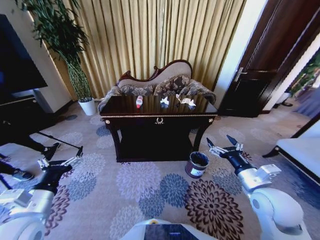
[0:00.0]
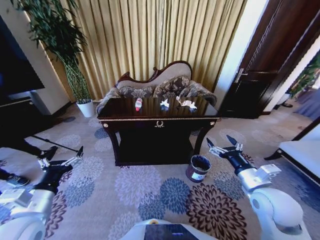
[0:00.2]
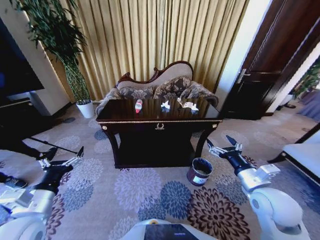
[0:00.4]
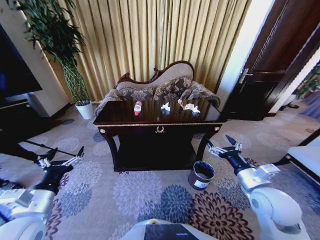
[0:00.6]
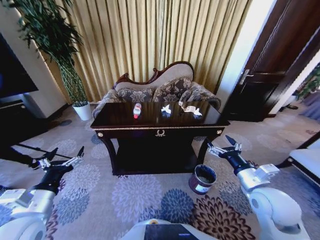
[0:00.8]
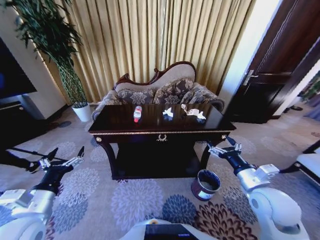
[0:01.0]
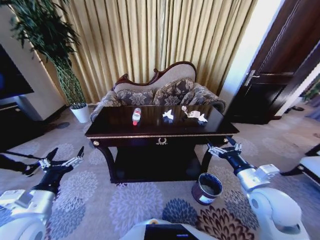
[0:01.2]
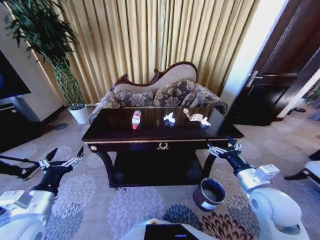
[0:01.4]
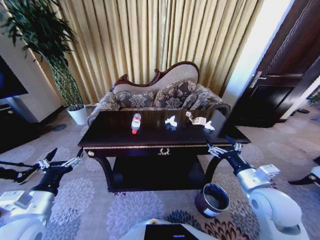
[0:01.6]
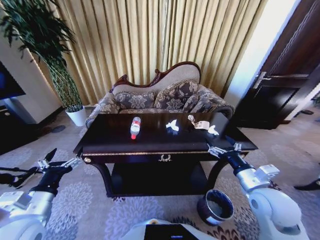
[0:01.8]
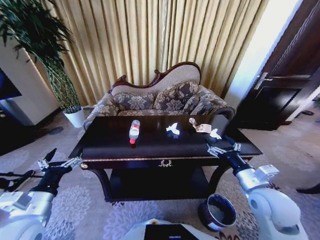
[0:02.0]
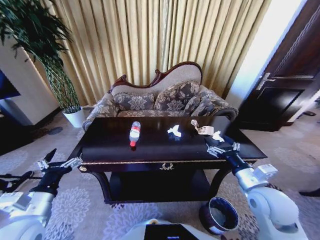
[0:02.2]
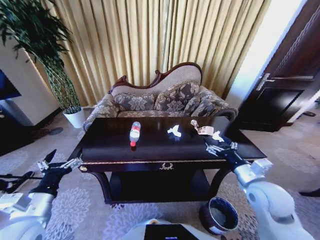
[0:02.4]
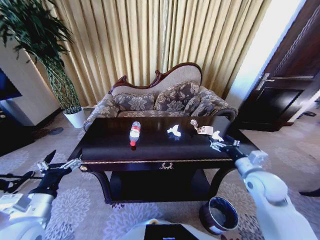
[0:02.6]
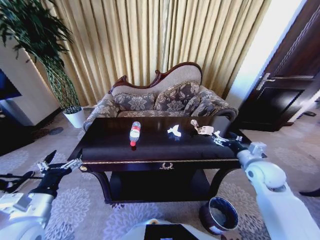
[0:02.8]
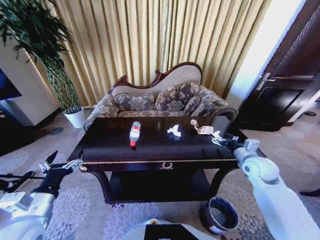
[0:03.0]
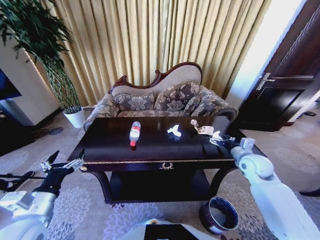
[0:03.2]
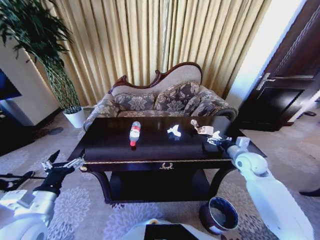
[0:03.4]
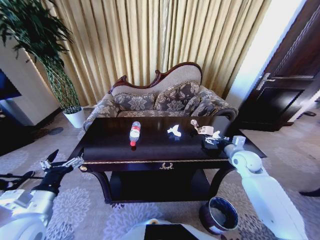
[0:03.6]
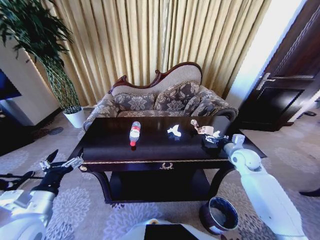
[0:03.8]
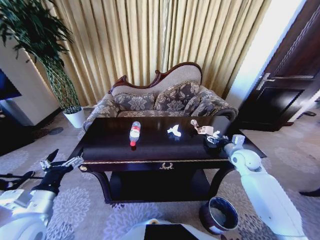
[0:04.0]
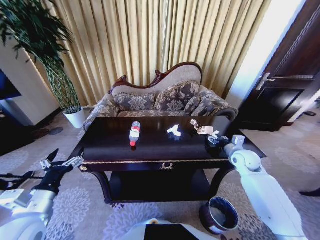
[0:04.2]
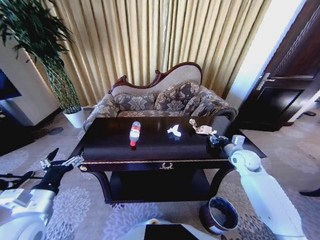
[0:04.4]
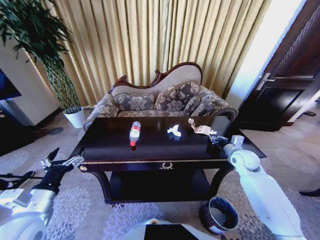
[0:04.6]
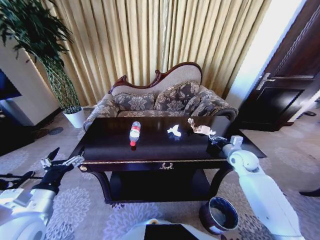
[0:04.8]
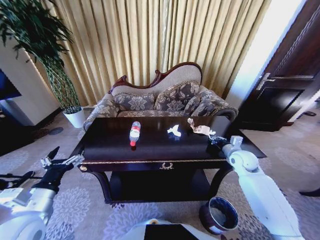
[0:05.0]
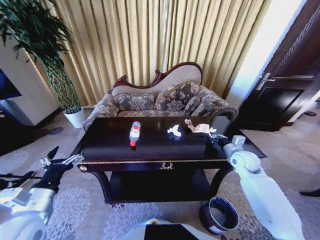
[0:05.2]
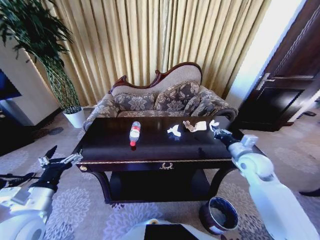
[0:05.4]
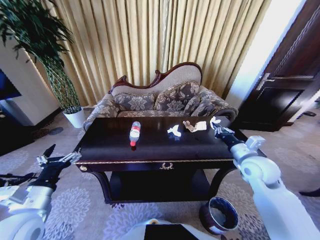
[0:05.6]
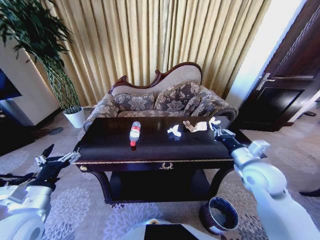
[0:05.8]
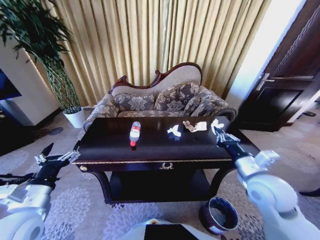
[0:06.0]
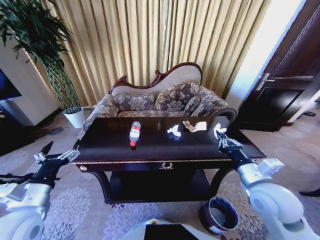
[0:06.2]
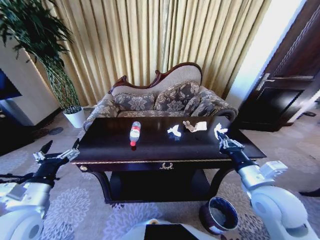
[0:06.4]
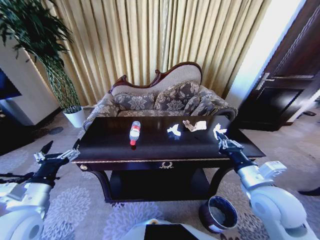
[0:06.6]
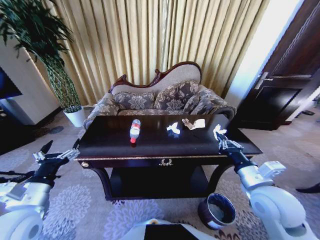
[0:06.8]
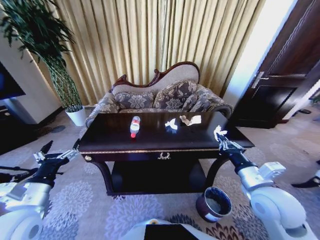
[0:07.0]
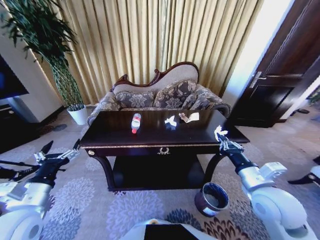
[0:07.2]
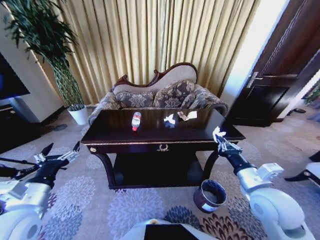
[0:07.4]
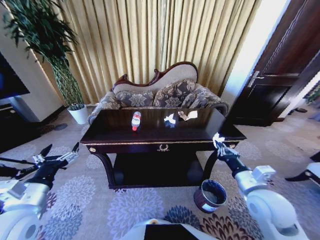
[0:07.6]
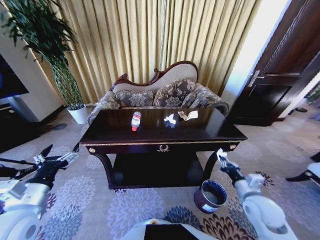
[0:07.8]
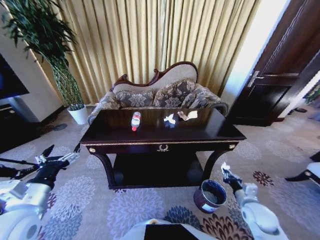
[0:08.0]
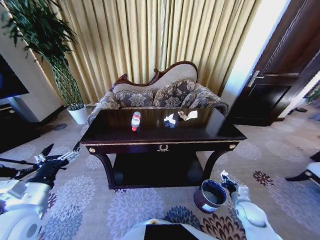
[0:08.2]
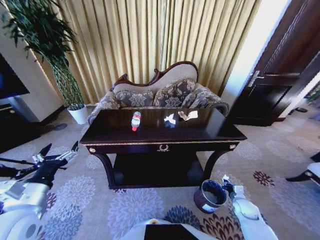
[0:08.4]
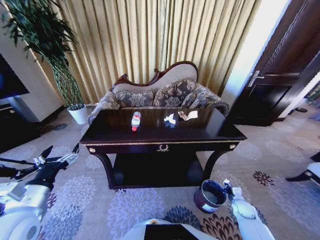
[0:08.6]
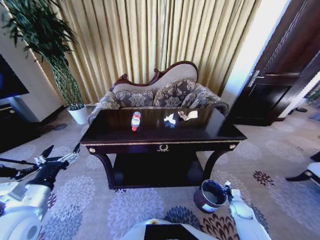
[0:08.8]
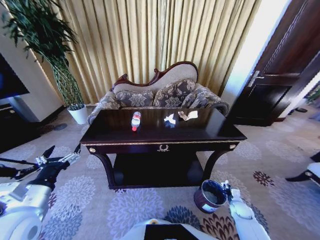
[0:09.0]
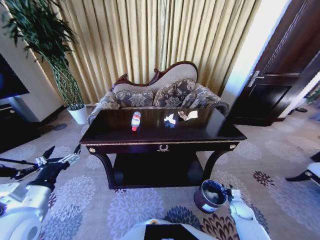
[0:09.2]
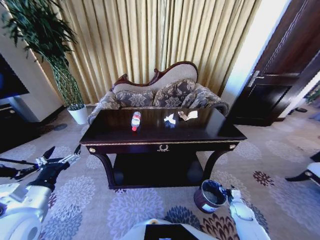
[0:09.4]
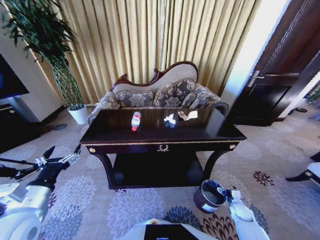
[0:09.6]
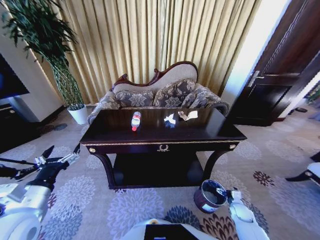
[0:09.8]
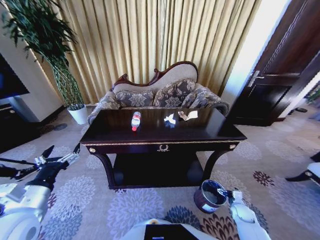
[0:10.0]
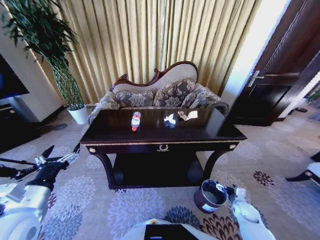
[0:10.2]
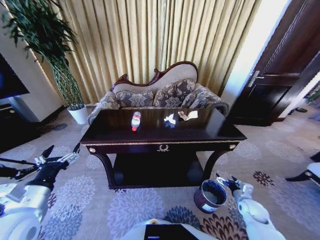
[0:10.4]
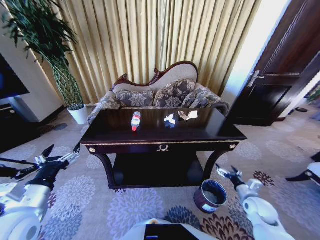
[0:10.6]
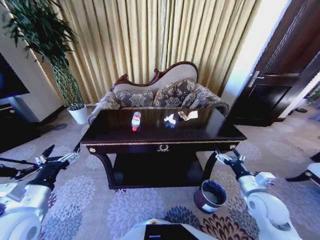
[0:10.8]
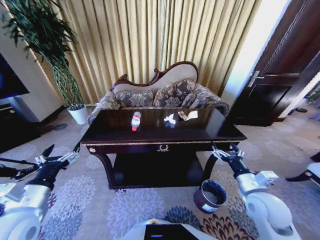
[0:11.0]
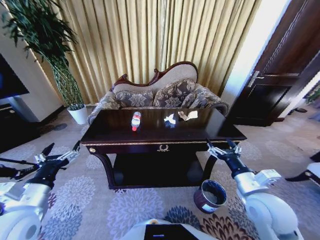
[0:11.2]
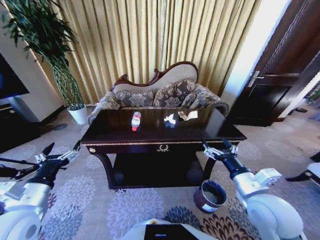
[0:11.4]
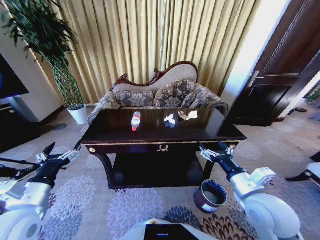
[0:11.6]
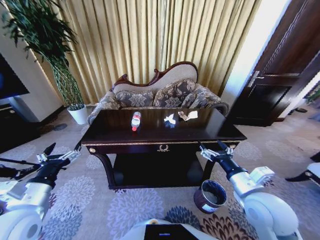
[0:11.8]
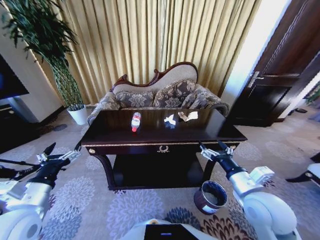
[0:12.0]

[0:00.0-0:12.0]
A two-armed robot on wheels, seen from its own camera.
Task of the whole recording: Move to the front of the table and place the trash on the table into the trash bin.
0:01.6 to 0:03.0: The right gripper goes about 15 cm forward and to the right.
0:03.0 to 0:04.4: The right gripper shifts some 5 cm forward, and closes its fingers.
0:04.4 to 0:06.0: The right gripper moves backward, to the left and upward, approximately 20 cm, and closes.
0:06.0 to 0:07.6: The right gripper moves roughly 5 cm.
0:07.6 to 0:09.0: The right gripper goes approximately 35 cm downward and to the right.
0:09.0 to 0:10.4: The right gripper travels upward by approximately 10 cm, and opens.
0:10.4 to 0:12.0: The right gripper travels upward and to the left by approximately 30 cm.

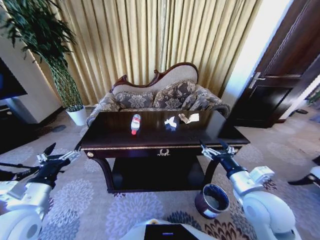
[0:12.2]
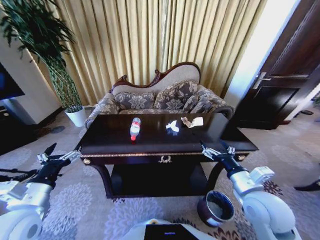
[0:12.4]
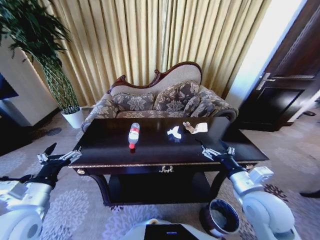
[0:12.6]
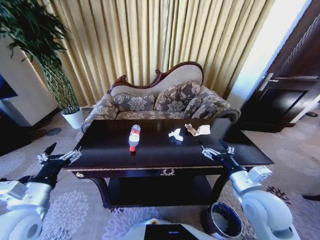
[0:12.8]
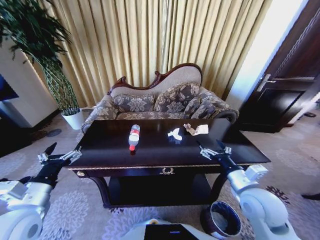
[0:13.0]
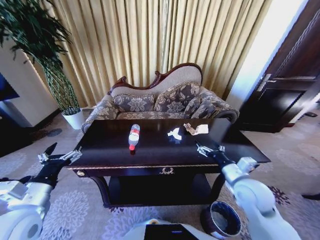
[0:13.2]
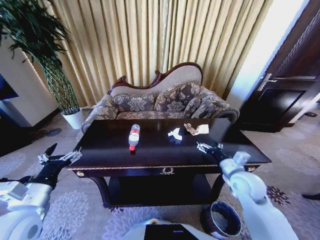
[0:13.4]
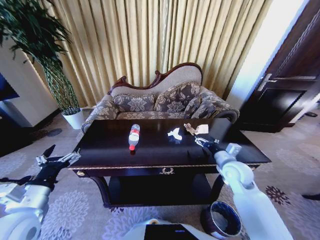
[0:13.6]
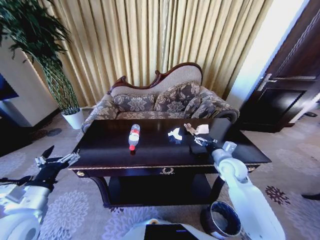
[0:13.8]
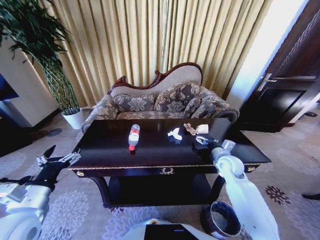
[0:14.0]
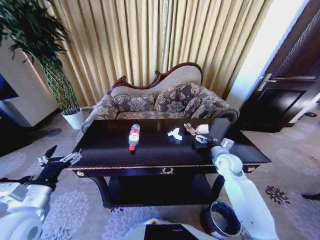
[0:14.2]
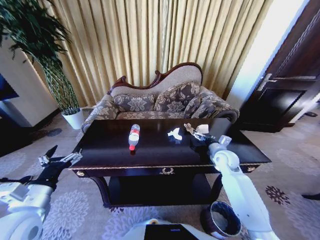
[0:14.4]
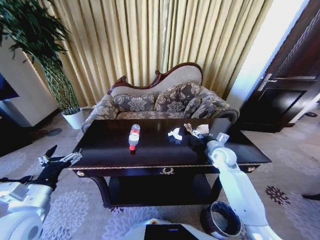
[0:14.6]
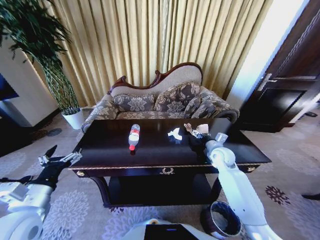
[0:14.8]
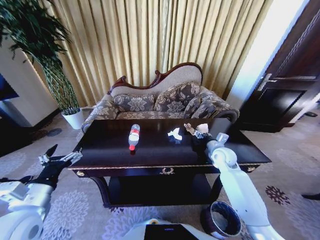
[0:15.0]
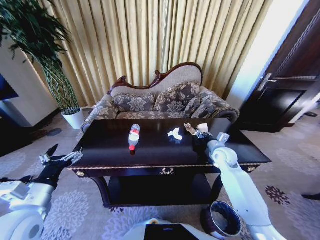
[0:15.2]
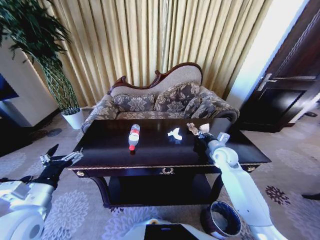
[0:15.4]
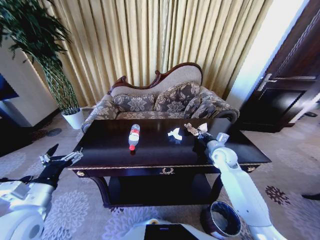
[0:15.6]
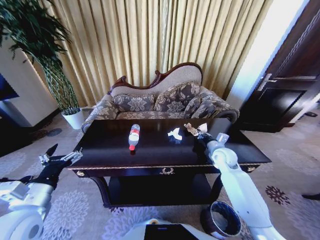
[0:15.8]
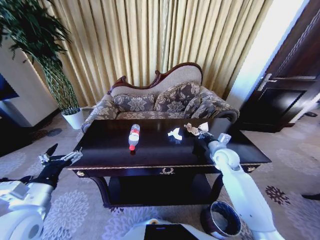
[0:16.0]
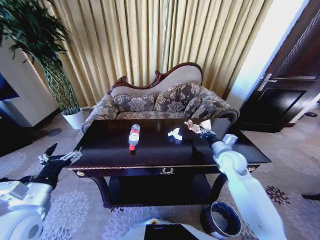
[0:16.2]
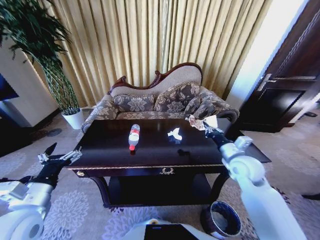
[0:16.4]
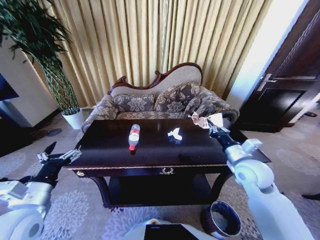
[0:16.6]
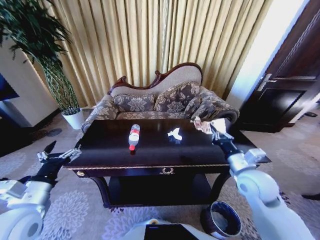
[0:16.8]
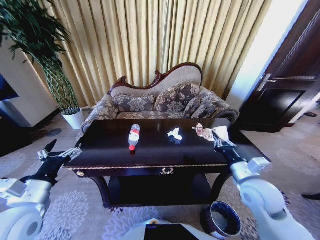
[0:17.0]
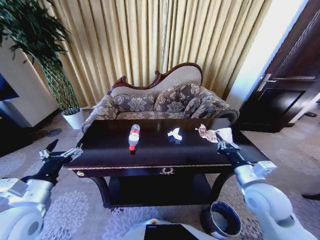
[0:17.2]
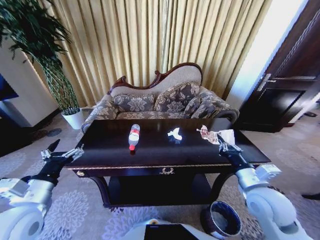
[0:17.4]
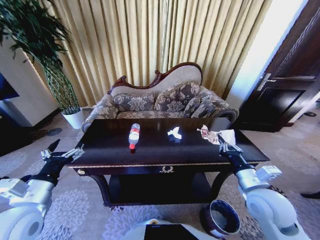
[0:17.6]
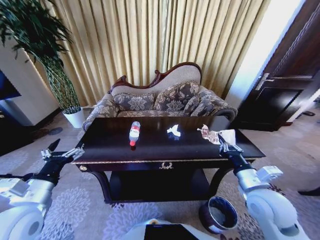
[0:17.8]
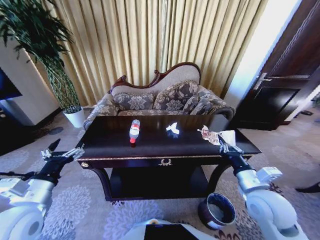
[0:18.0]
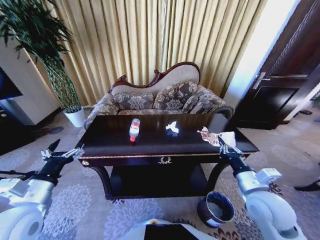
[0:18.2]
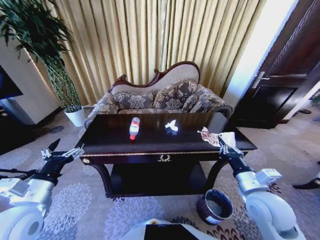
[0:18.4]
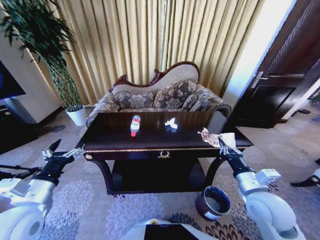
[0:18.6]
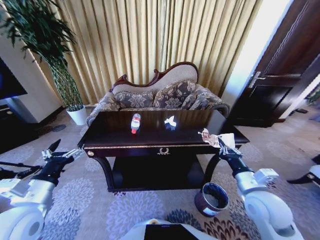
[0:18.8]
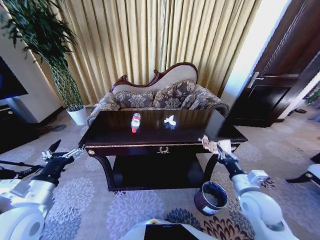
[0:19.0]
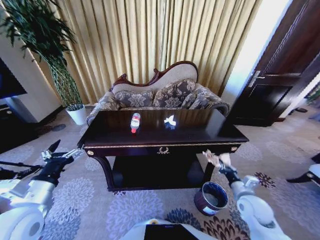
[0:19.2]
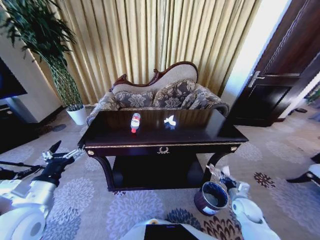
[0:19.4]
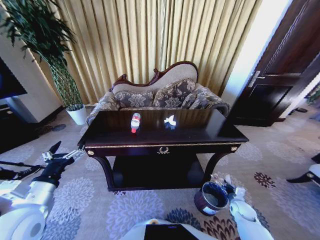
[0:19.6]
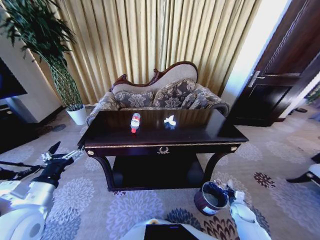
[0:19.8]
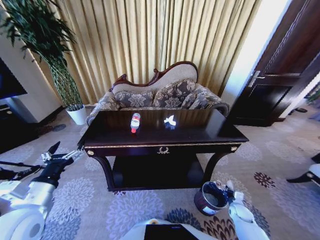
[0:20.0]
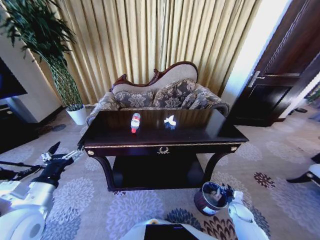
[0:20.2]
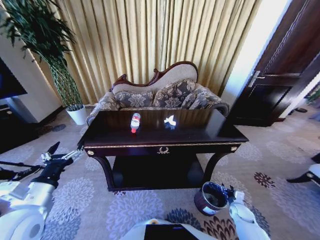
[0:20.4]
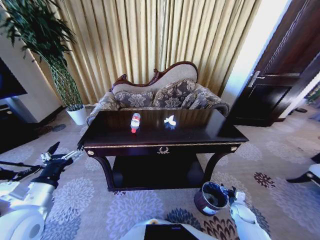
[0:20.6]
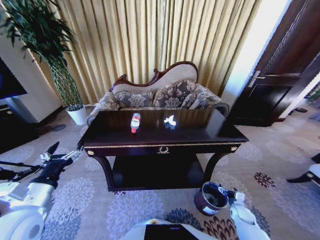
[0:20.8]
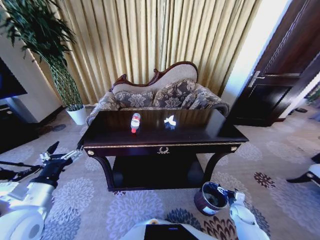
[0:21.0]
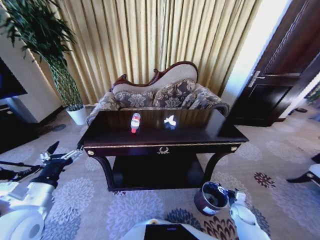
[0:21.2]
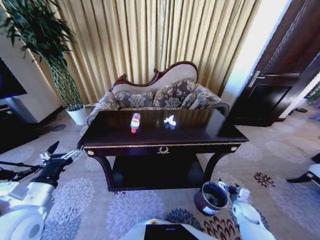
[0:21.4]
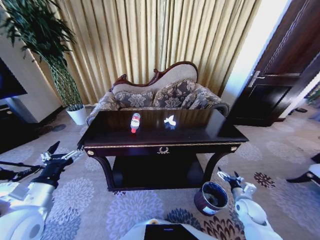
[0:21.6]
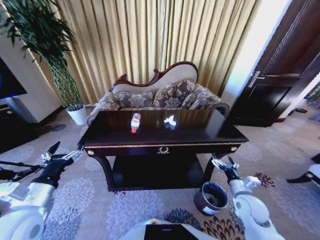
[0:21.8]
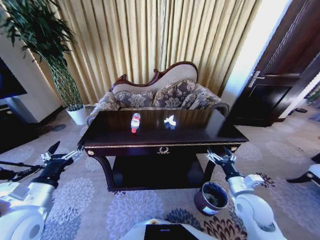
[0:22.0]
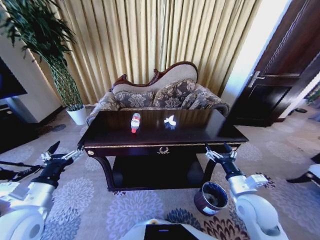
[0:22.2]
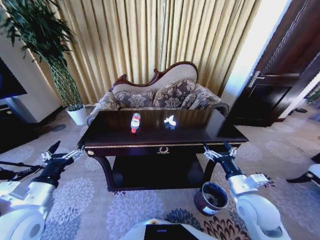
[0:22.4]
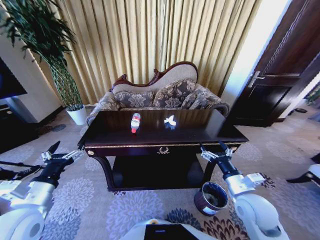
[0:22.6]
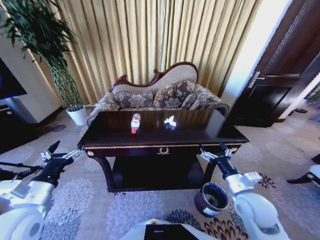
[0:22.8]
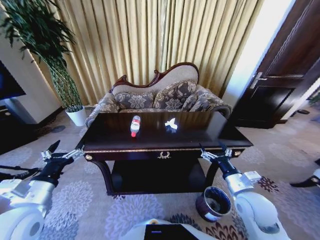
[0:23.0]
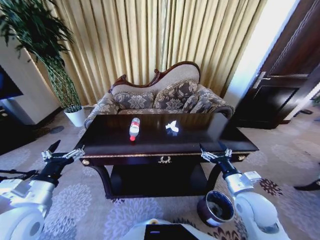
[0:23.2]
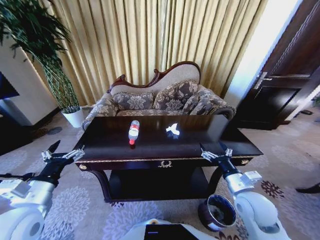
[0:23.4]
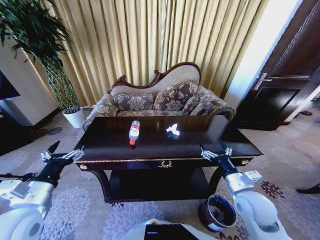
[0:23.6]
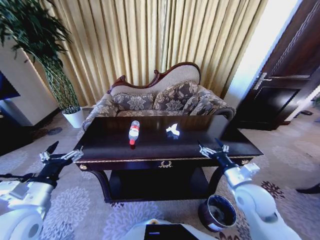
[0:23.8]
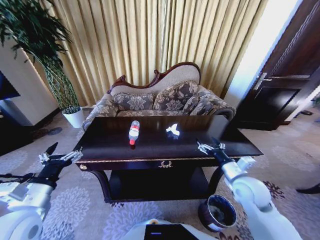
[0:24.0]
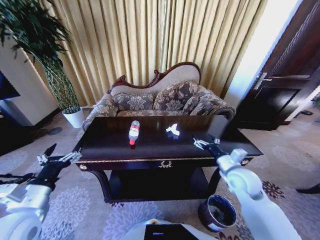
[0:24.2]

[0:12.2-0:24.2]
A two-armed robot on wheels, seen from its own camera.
Task of the whole recording: Move to the front of the table and place the trash on the table into the trash bin.
0:12.2 to 0:13.8: The right gripper moves forward and downward, about 15 cm.
0:13.8 to 0:15.2: The right gripper moves forward, about 5 cm, and closes its fingers.
0:15.2 to 0:16.6: The right gripper is displaced backward and upward by some 15 cm.
0:16.6 to 0:18.2: The right gripper shifts roughly 10 cm backward.
0:18.2 to 0:19.8: The right gripper heads downward and to the right, covering roughly 35 cm.
0:21.2 to 0:22.6: The right gripper goes some 35 cm upward and to the left.
0:22.6 to 0:24.2: The right gripper heads forward, covering roughly 10 cm.
